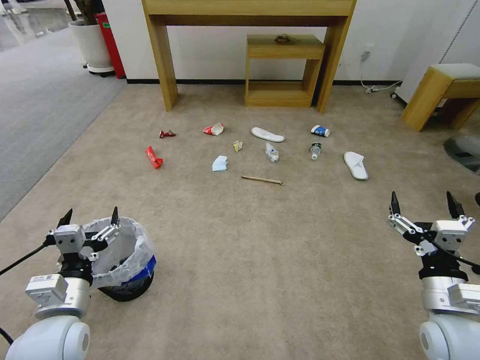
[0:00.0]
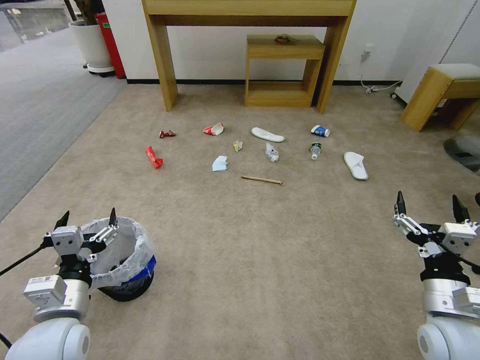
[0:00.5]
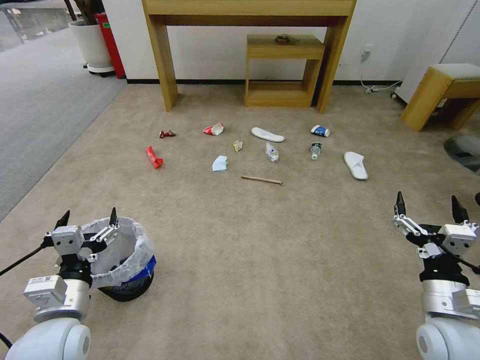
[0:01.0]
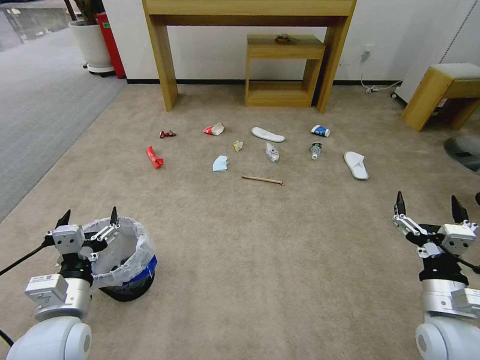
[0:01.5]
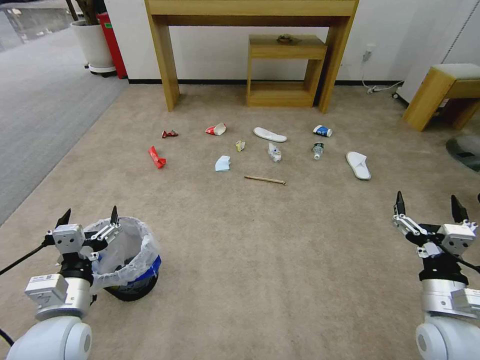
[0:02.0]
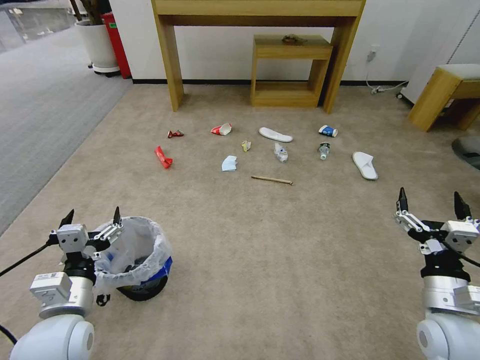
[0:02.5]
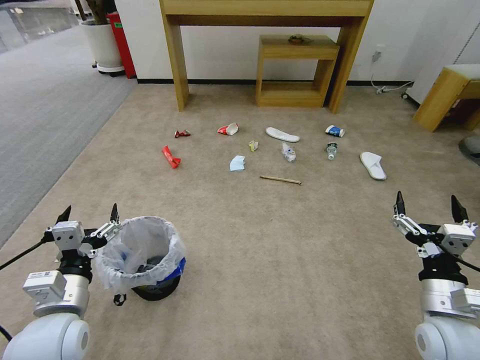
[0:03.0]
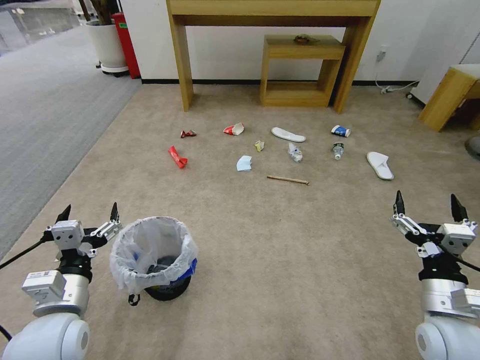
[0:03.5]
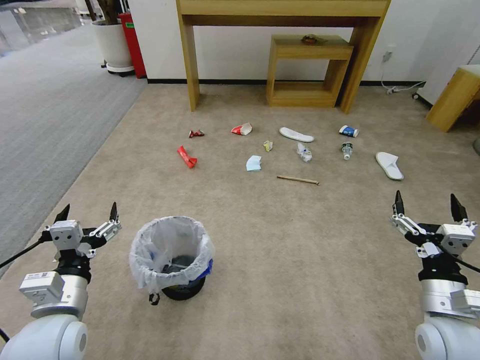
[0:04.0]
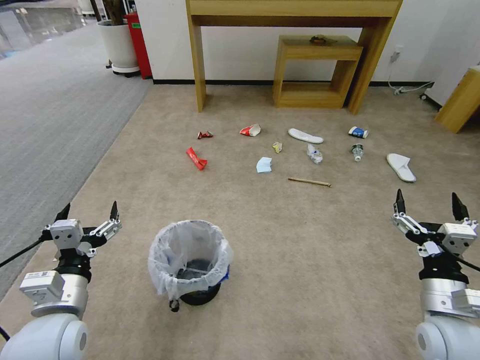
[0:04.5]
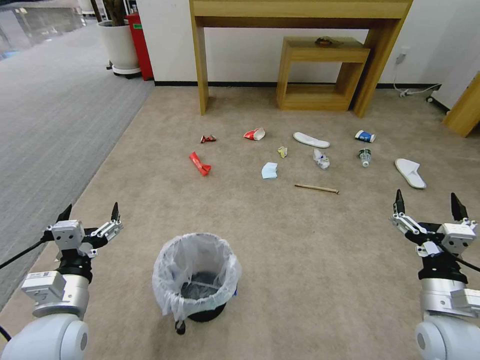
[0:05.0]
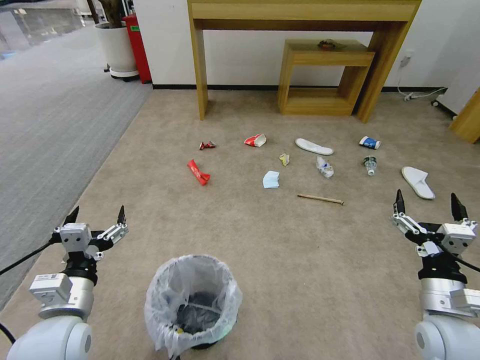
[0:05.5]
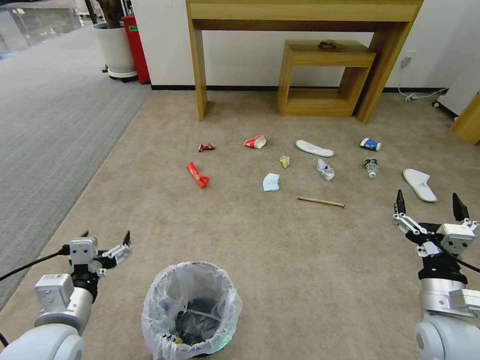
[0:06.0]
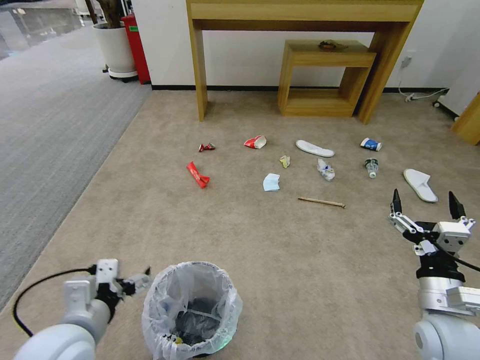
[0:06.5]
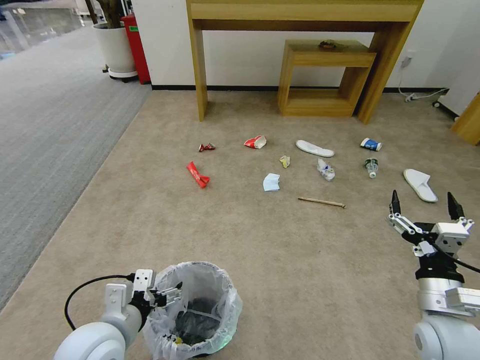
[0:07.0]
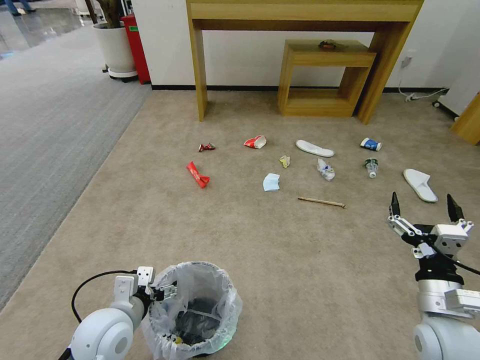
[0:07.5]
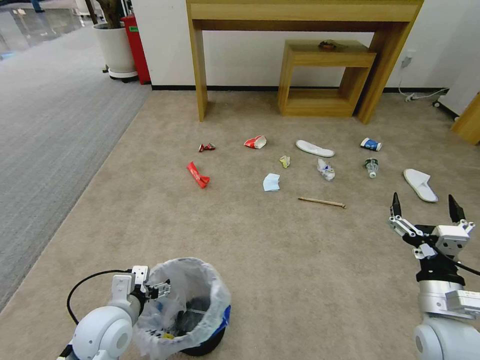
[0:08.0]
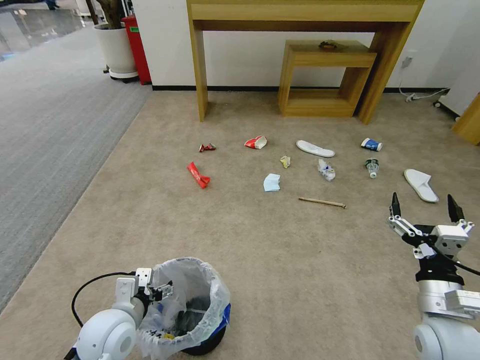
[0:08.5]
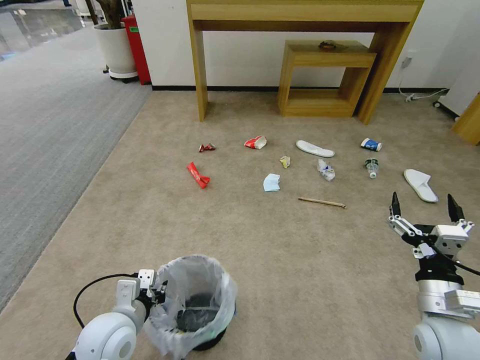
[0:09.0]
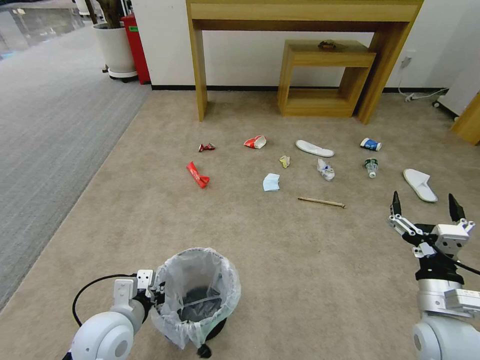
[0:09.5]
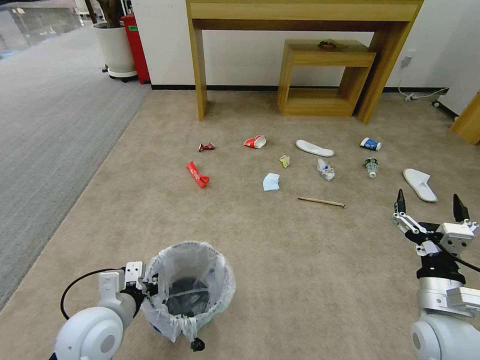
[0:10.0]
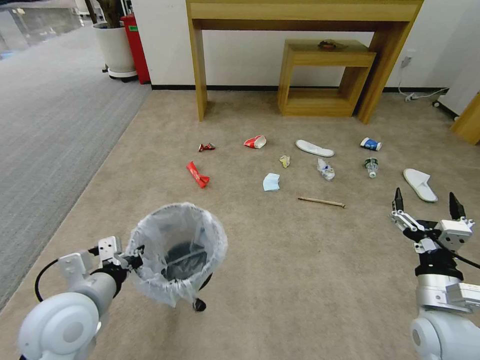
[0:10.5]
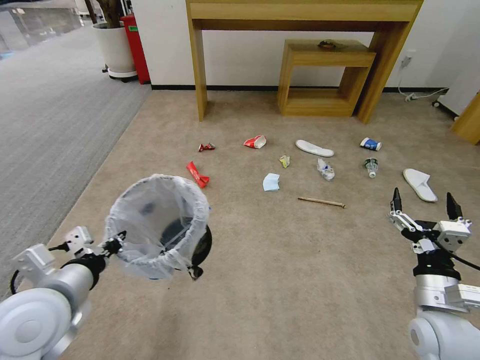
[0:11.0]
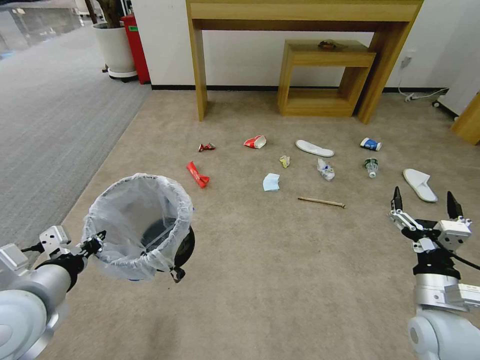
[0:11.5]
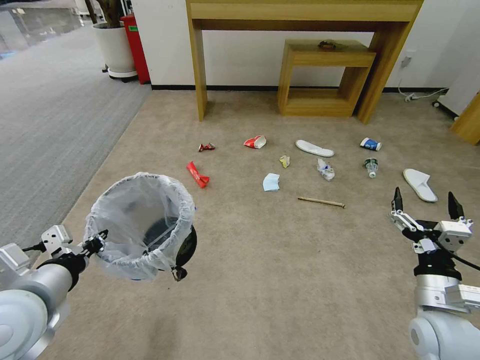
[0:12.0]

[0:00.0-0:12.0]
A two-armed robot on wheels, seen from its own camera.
Task of the whole recording: Pick up the trash bin and place the garbage on the floor into it.
0:06.0 to 0:08.0: The left gripper heads downward and forward, covering about 10 cm.
0:08.0 to 0:10.0: The left gripper closes up.
0:10.0 to 0:12.0: The left gripper heads upward and to the left, covering roughly 15 cm.

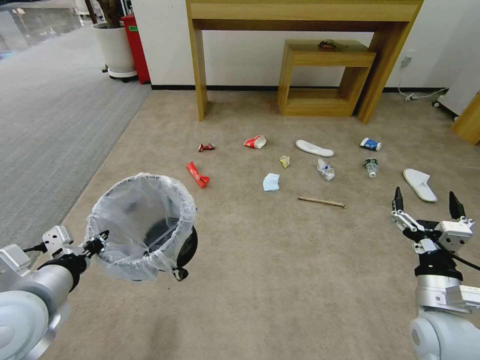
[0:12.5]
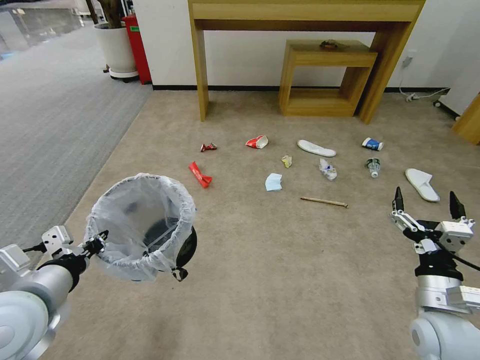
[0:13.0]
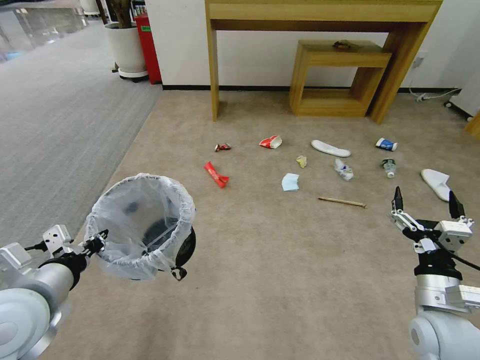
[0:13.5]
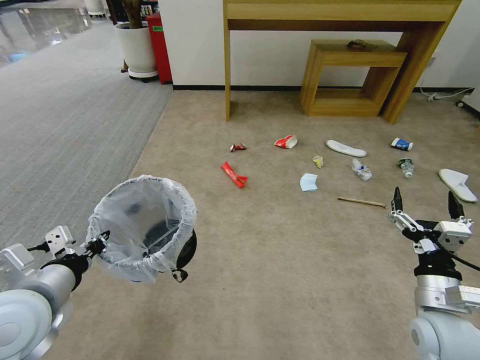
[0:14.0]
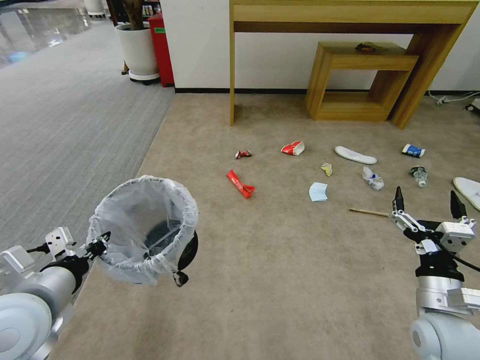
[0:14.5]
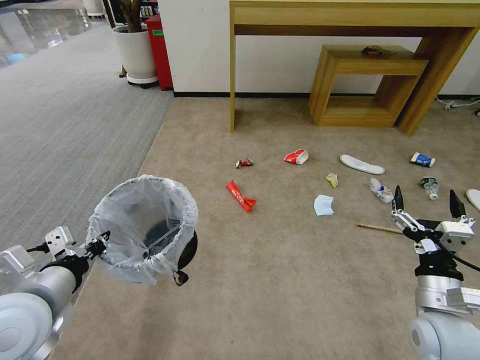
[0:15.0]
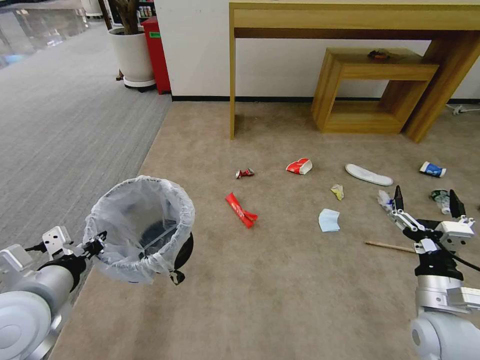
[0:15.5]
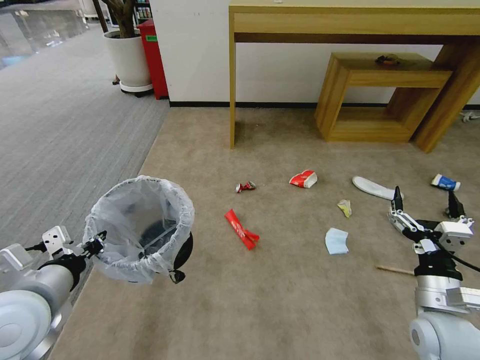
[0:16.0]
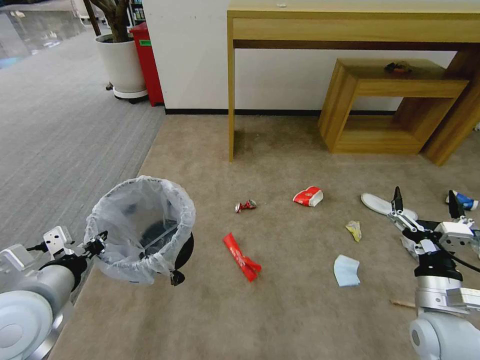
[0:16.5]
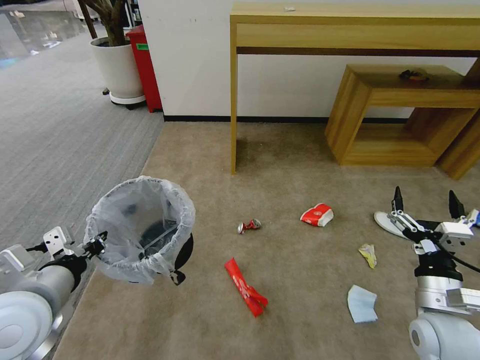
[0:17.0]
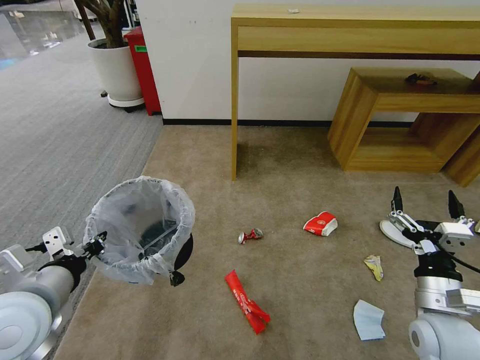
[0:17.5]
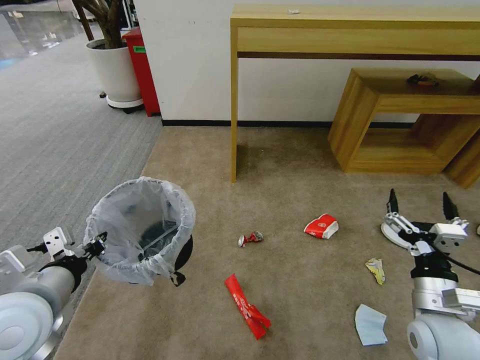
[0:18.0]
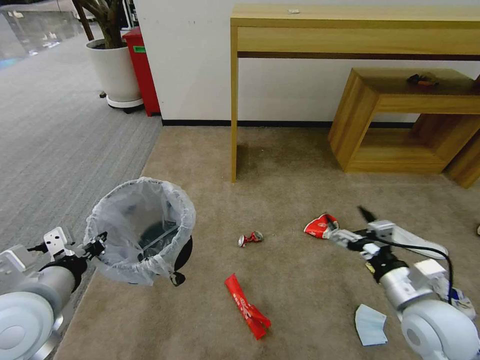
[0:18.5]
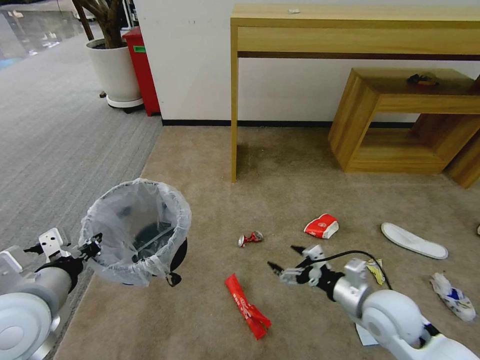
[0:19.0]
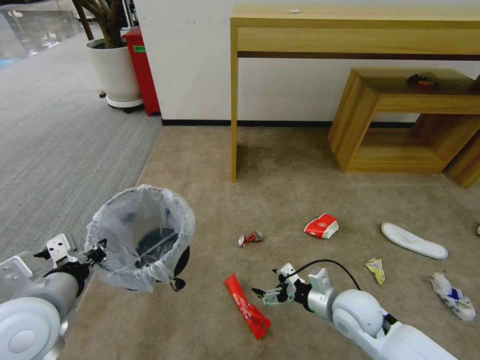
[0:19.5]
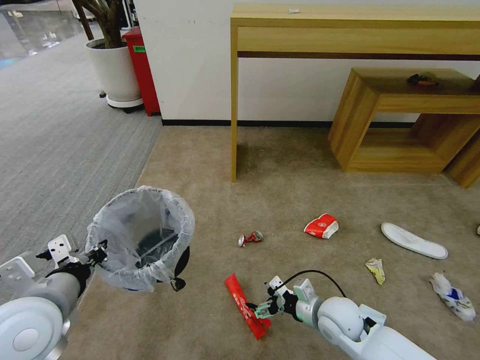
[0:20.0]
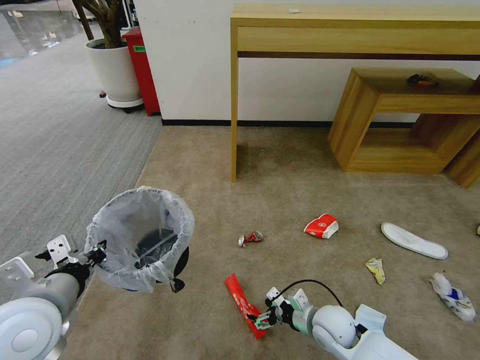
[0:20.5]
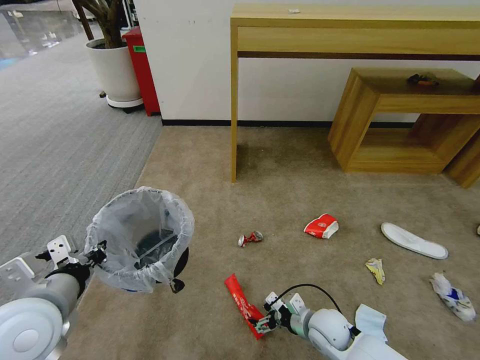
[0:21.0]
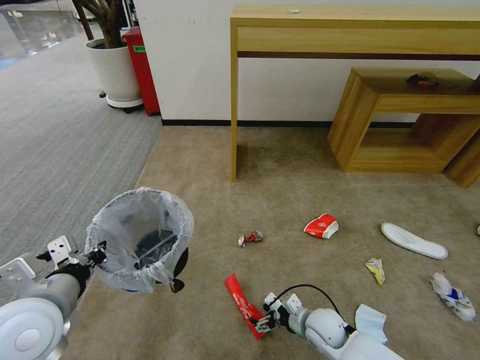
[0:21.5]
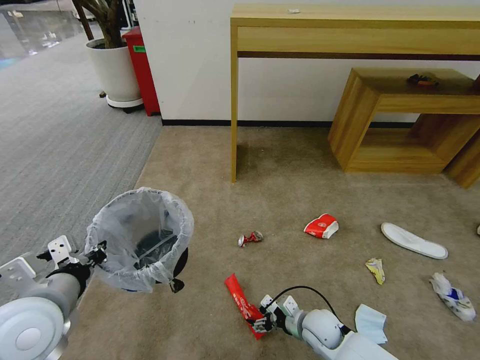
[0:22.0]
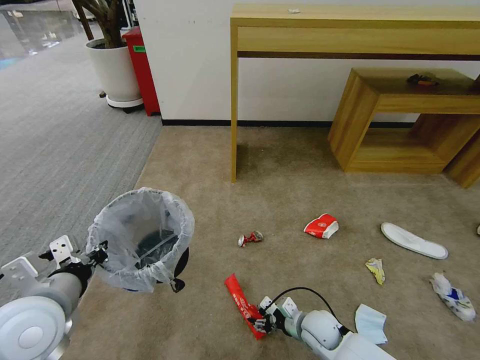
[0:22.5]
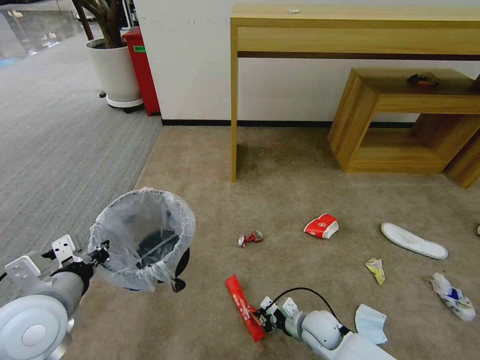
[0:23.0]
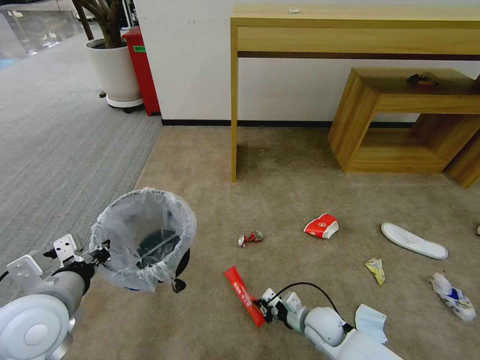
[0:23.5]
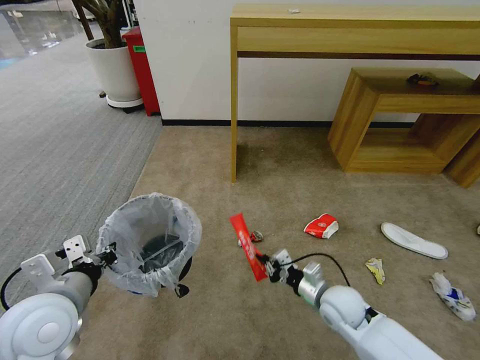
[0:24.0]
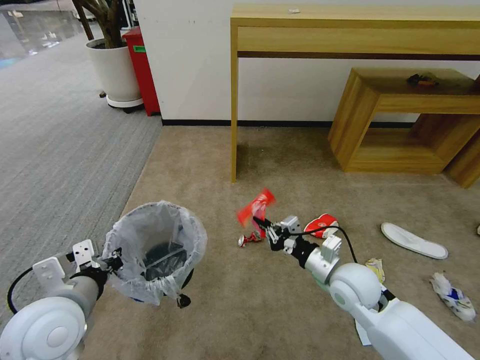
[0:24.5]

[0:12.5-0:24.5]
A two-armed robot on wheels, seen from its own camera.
Task of the whole recording: Pick up the trash bin and place the garbage on the floor into it.
0:18.5 to 0:20.5: The right gripper goes roughly 20 cm downward and to the left.
0:20.5 to 0:22.5: The right gripper is displaced downward by approximately 5 cm, and closes.
0:22.5 to 0:24.5: The right gripper heads upward, covering approximately 20 cm, and closes.

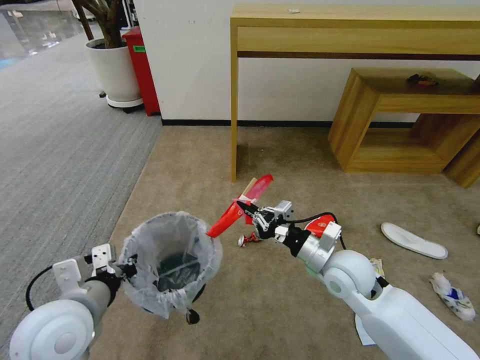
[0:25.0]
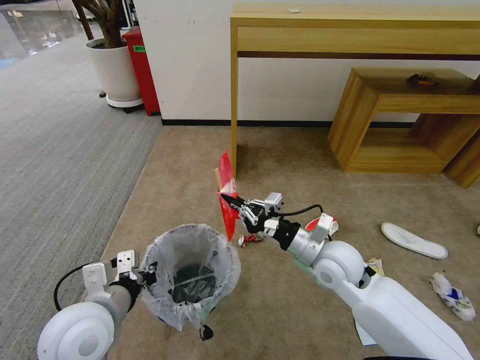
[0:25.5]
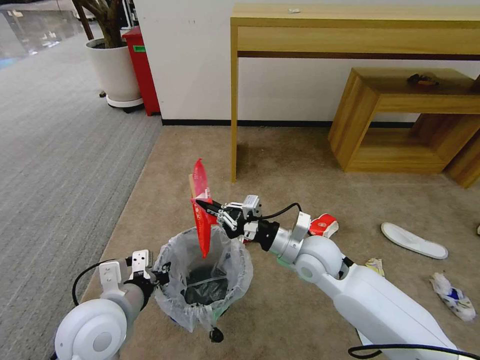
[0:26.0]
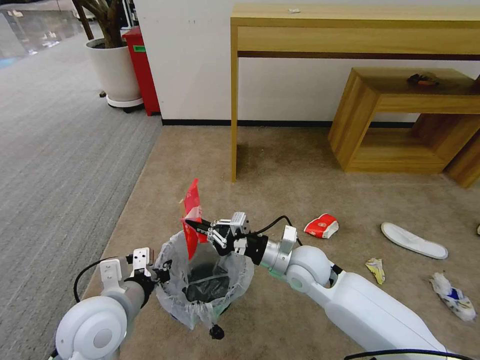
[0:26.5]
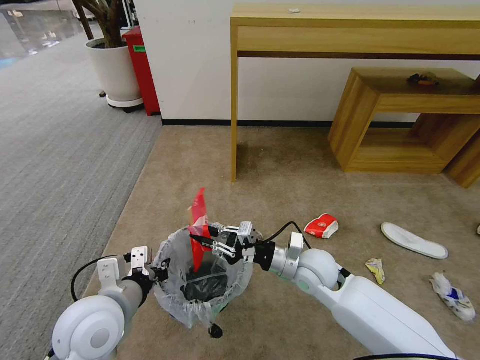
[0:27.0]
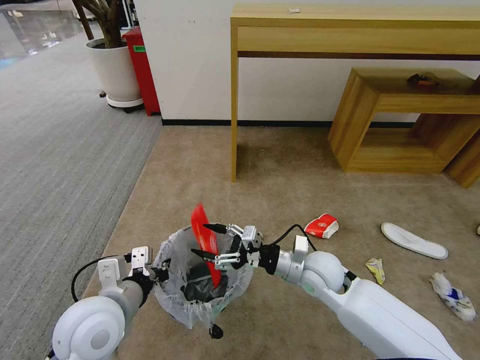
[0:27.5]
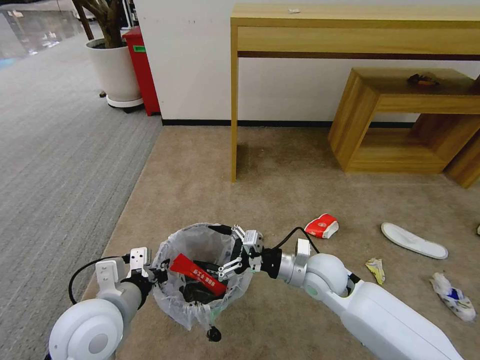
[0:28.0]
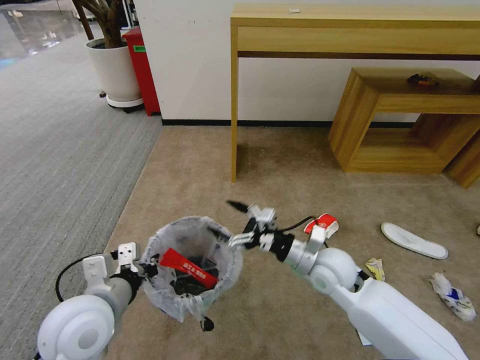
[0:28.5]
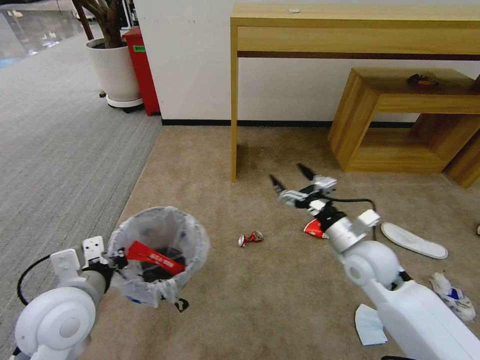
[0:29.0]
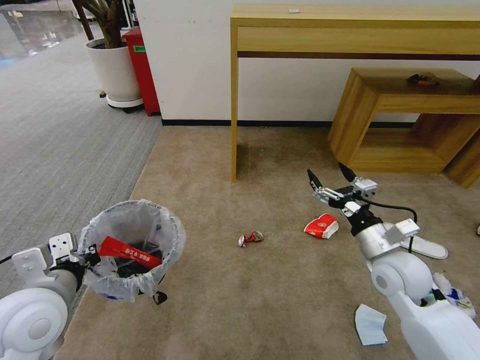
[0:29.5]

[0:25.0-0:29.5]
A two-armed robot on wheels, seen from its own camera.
Task of the whole recording: Pick up the trash bin and place the garbage on the floor into it.
0:25.0 to 0:27.0: The right gripper goes about 5 cm to the left.
0:27.0 to 0:29.5: The right gripper is displaced to the right by roughly 15 cm, and opens up, while the left gripper travels to the left by roughly 10 cm.
